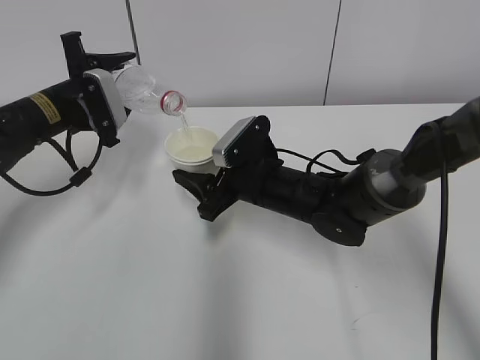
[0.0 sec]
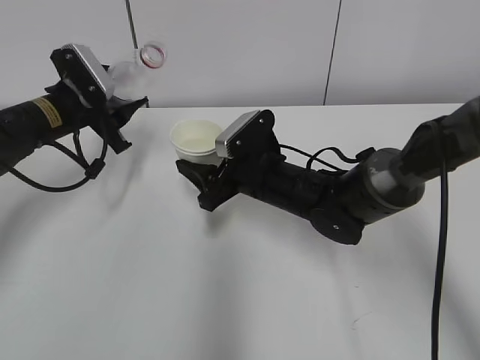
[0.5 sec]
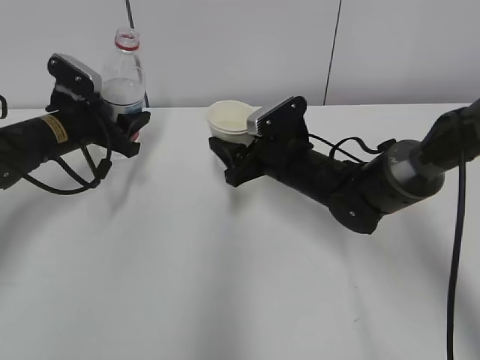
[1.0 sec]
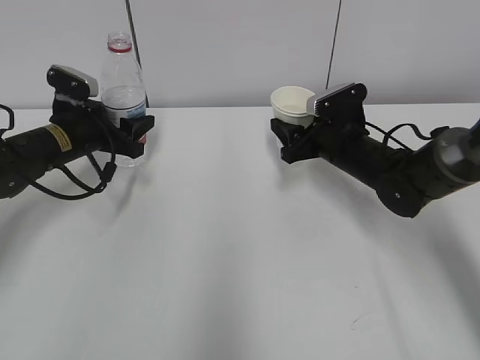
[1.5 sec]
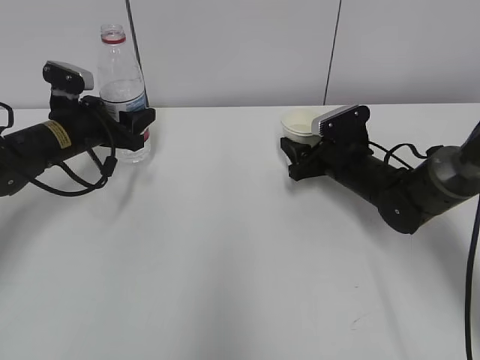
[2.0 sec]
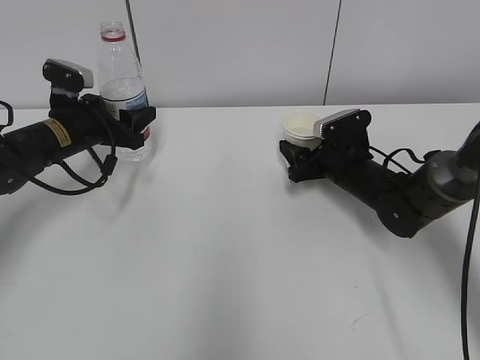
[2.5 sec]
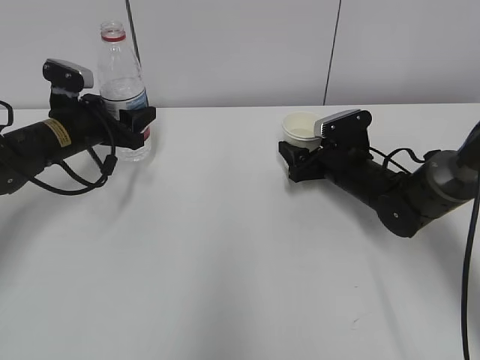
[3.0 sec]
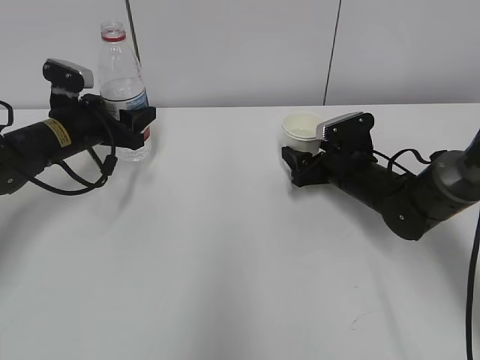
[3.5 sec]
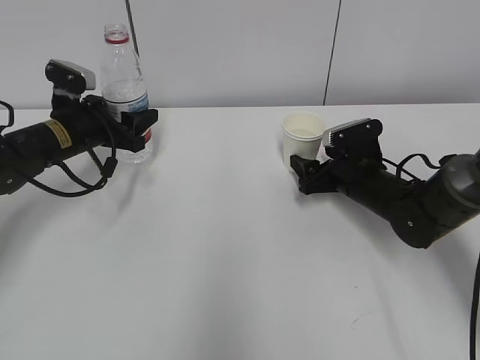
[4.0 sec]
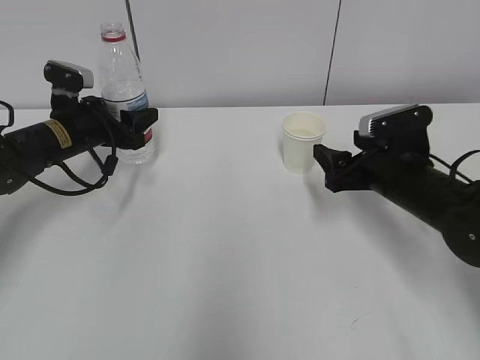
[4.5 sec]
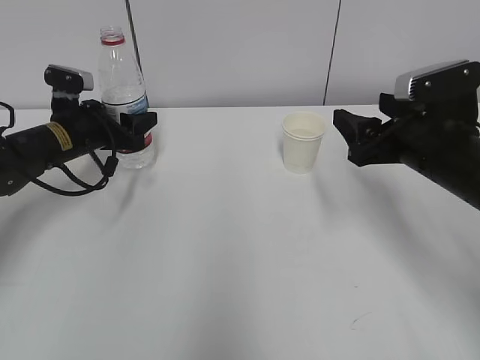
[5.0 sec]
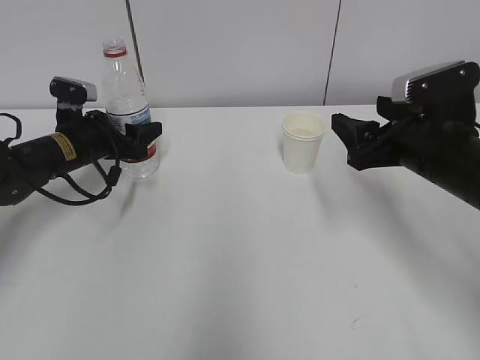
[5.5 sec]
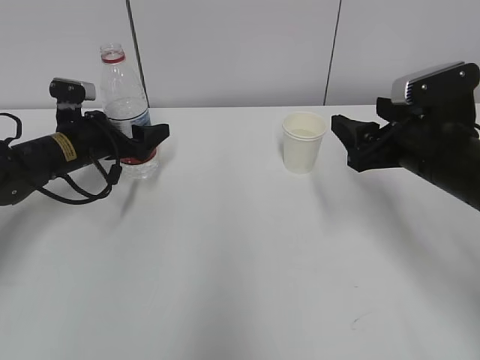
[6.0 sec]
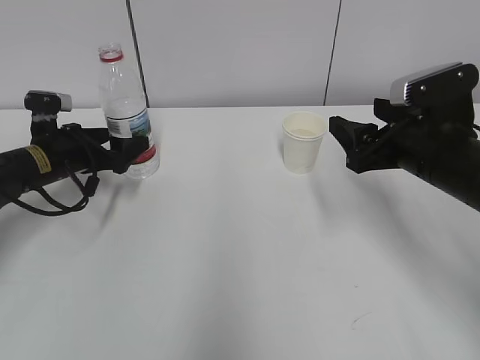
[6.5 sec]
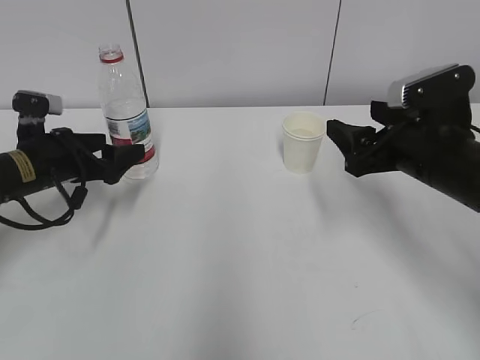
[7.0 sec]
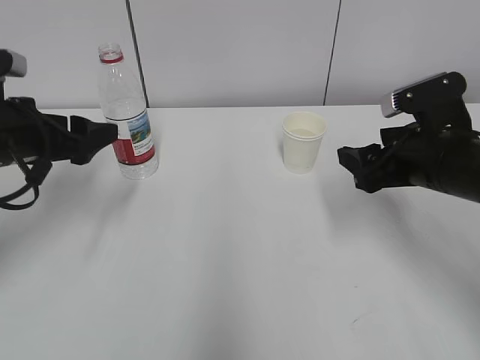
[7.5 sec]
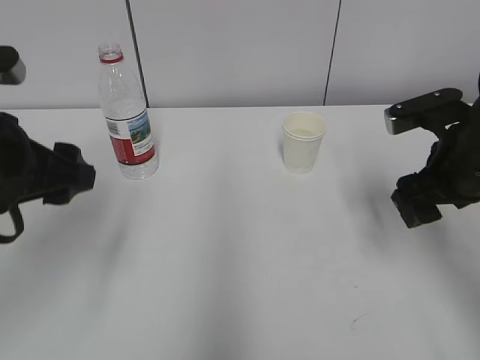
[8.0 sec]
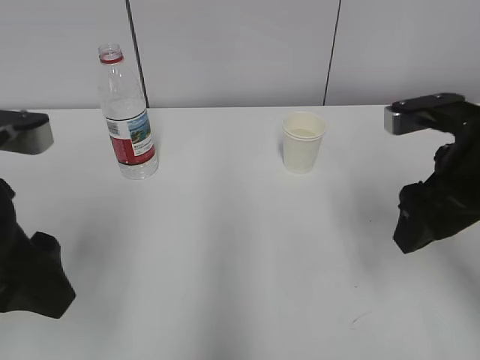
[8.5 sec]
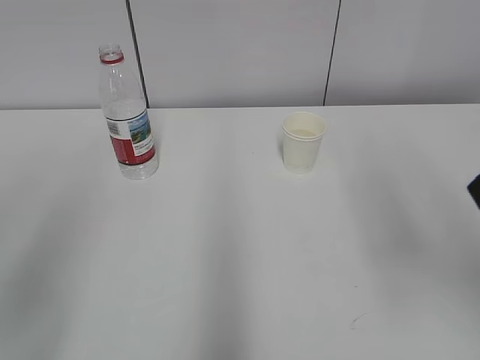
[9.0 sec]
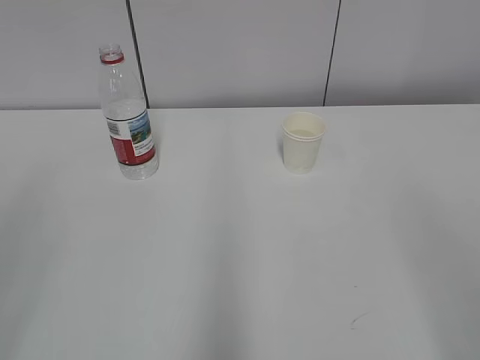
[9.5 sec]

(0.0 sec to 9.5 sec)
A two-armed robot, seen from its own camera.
0.0 sec - 2.0 sec: The right gripper heads to the right, covering approximately 15 cm.
2.0 sec - 4.0 sec: The right gripper opens its fingers.
4.0 sec - 5.5 sec: The right gripper goes some 15 cm upward and backward.
5.5 sec - 7.5 sec: The left gripper is displaced backward and upward by roughly 15 cm, and opens its fingers.
7.5 sec - 9.5 sec: Both grippers travel together backward and upward, roughly 30 cm. The left gripper closes.

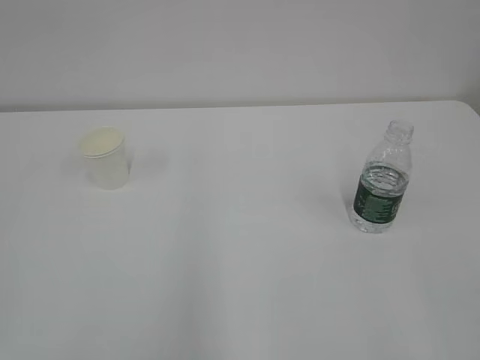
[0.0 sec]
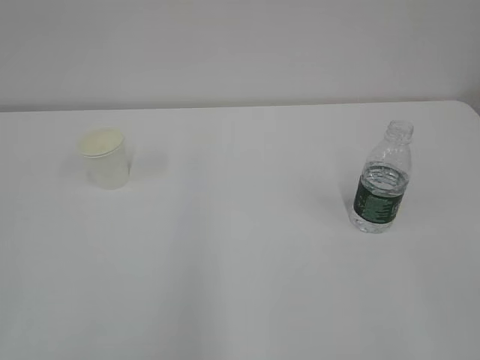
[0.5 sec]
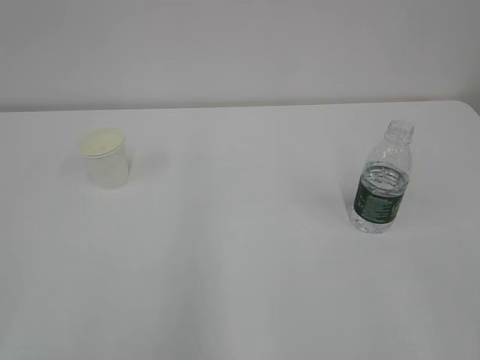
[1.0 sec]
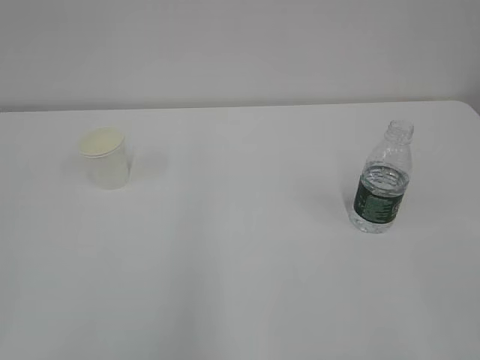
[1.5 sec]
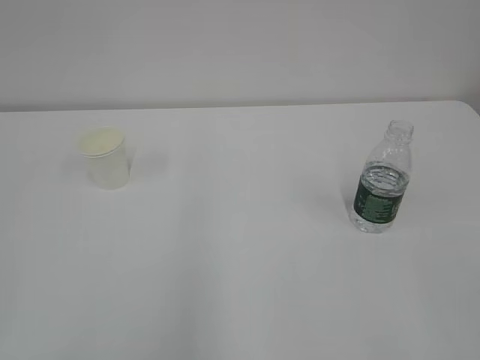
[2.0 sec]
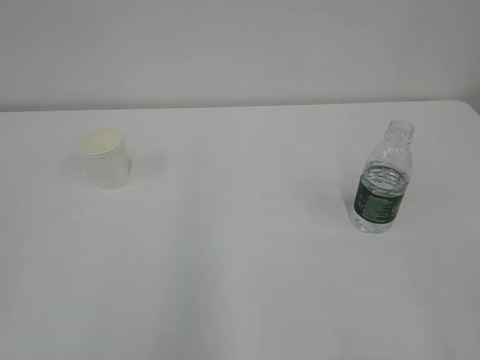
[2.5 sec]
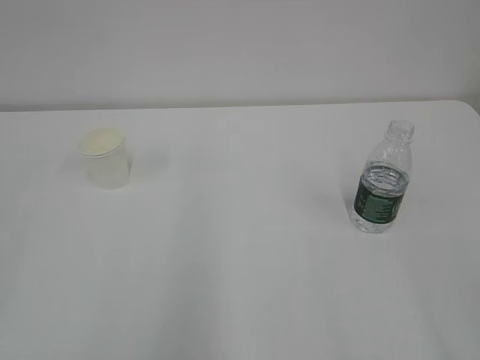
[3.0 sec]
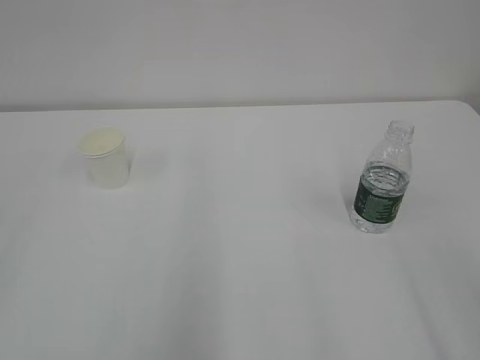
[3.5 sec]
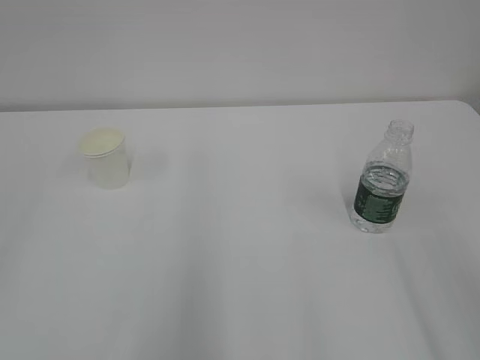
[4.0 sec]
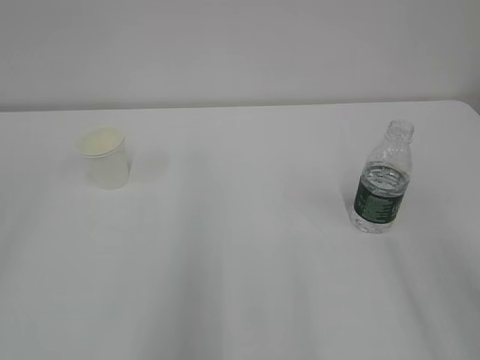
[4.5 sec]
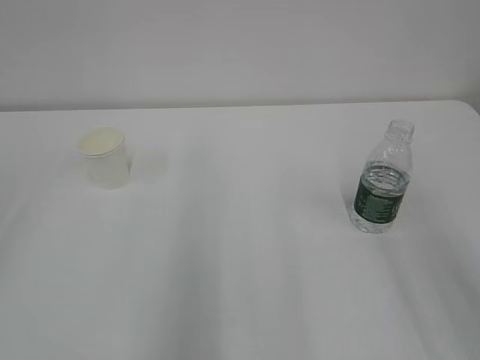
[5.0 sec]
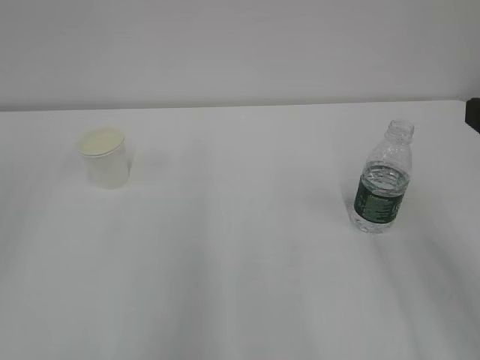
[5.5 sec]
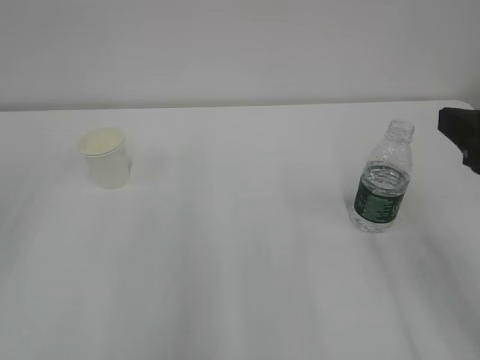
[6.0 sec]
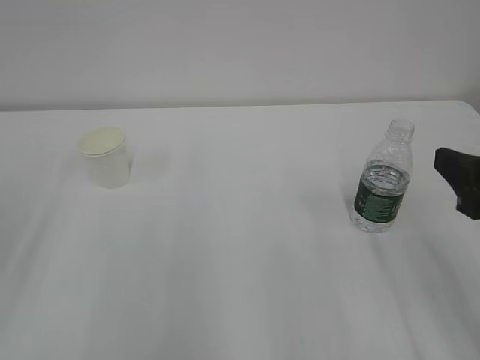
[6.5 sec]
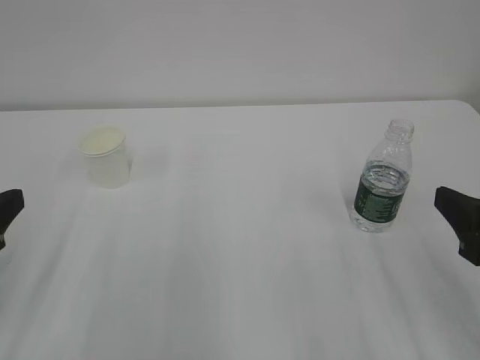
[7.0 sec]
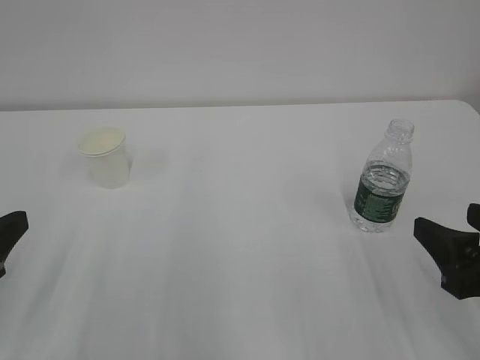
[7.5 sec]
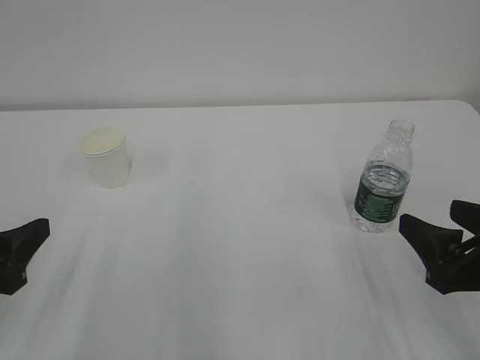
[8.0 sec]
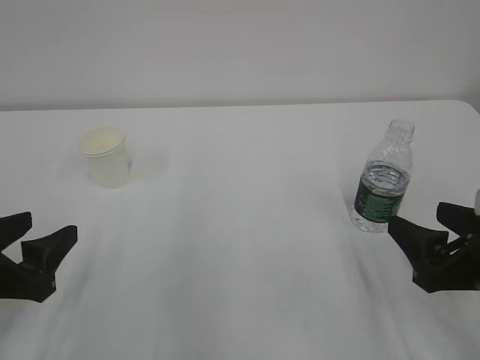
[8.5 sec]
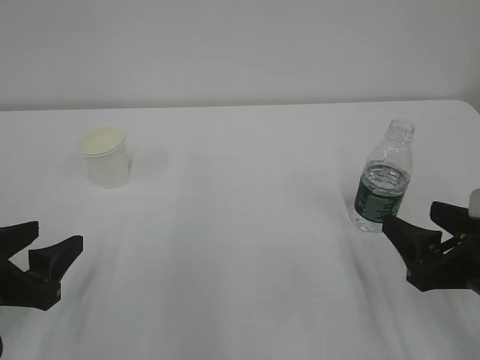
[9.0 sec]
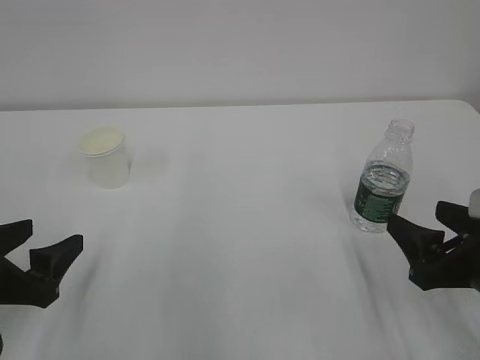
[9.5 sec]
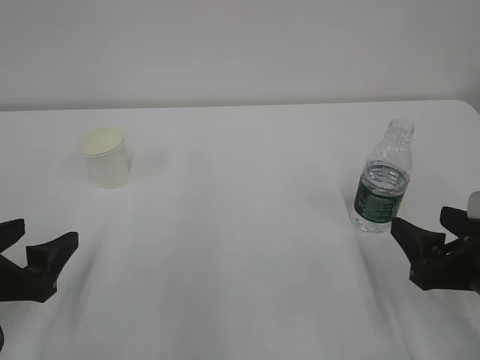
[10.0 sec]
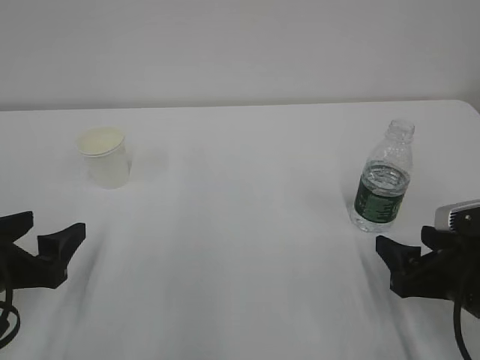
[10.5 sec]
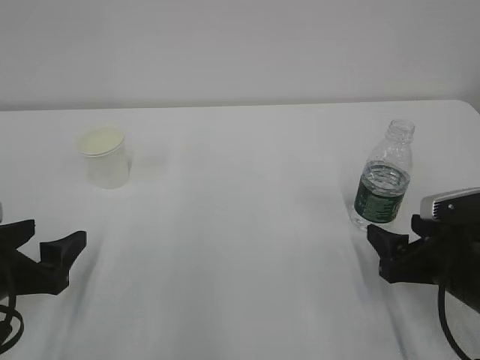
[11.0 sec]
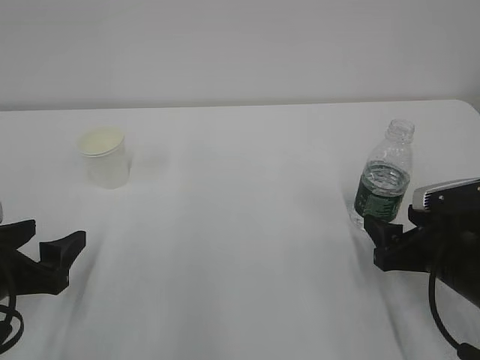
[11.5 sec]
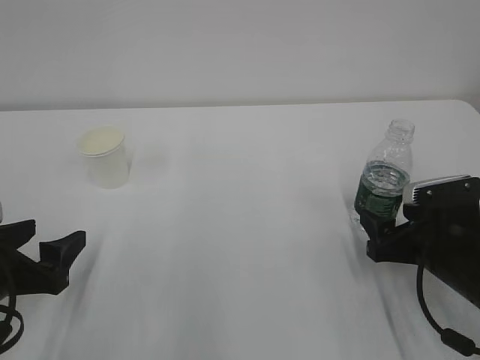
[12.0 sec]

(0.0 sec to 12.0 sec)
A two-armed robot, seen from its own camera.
4.0 sec - 6.0 sec: The right gripper goes approximately 15 cm forward.
6.0 sec - 8.0 sec: The left gripper goes approximately 15 cm downward, to the right and backward. Meanwhile the right gripper shifts approximately 10 cm downward.
8.0 sec - 10.0 sec: The left gripper opens.
10.0 sec - 12.0 sec: The right gripper travels forward and downward by roughly 10 cm.

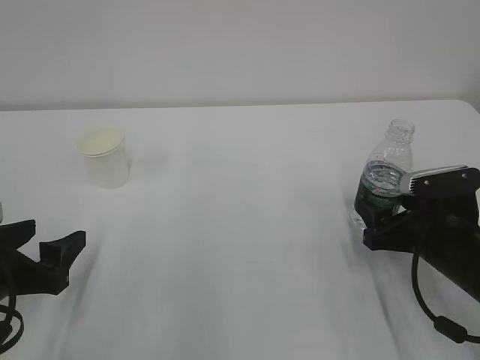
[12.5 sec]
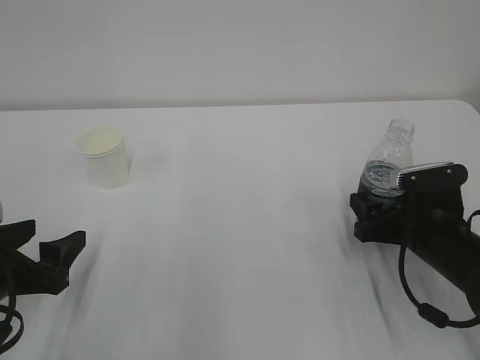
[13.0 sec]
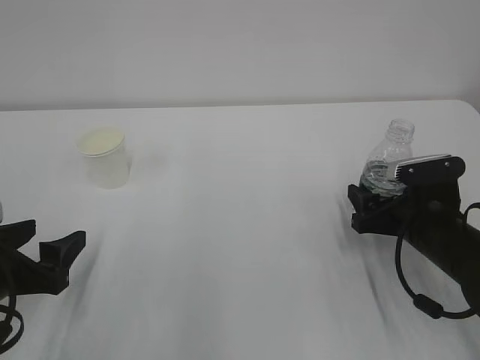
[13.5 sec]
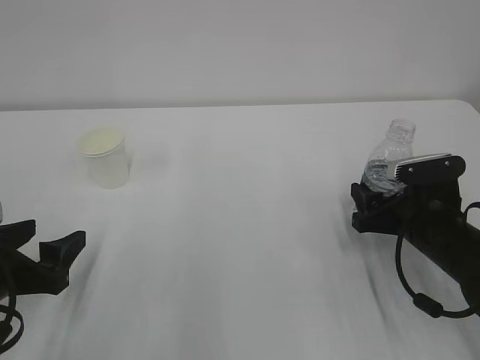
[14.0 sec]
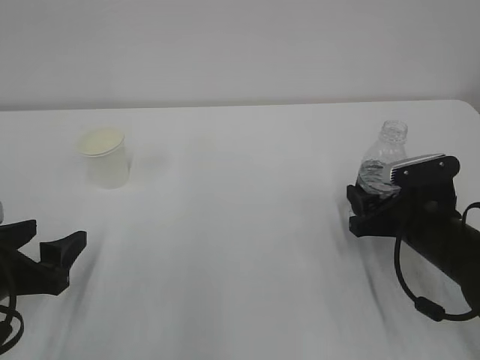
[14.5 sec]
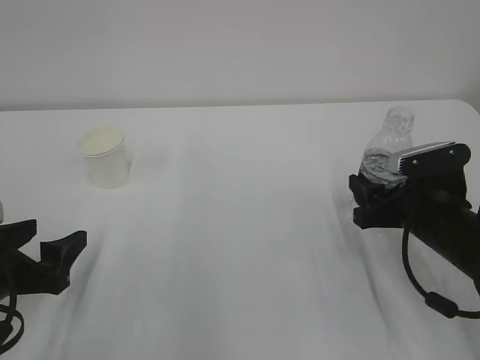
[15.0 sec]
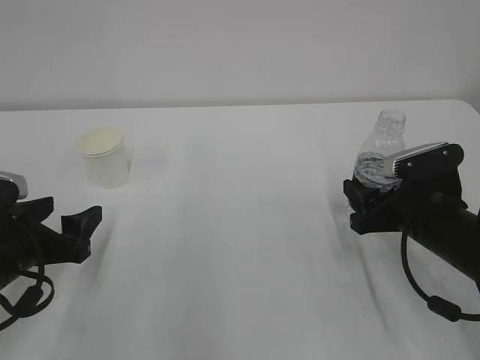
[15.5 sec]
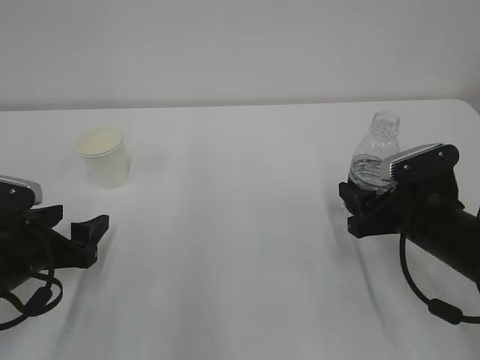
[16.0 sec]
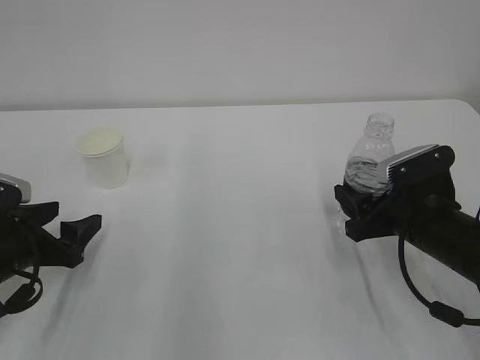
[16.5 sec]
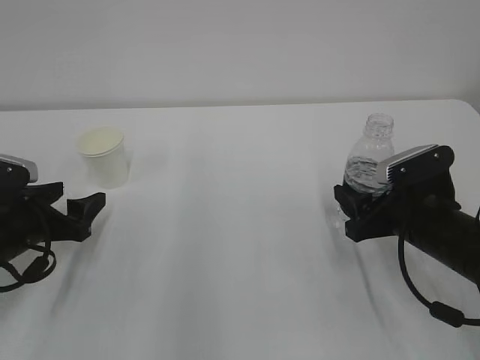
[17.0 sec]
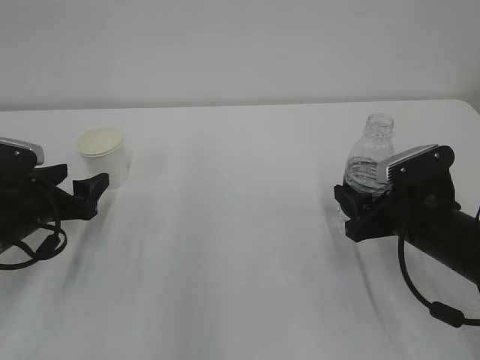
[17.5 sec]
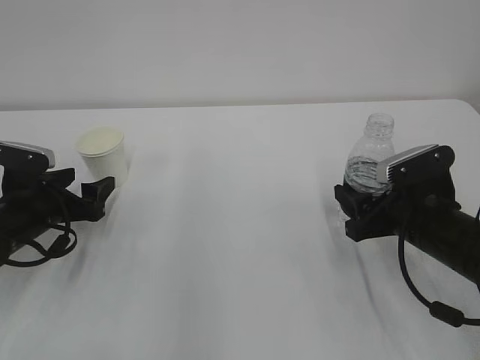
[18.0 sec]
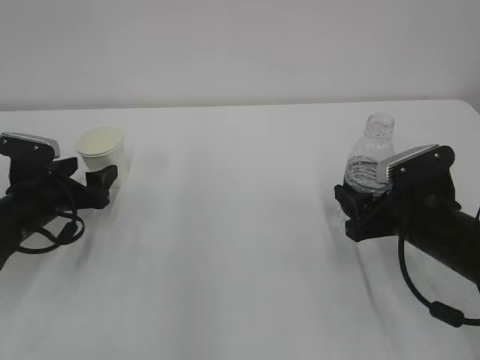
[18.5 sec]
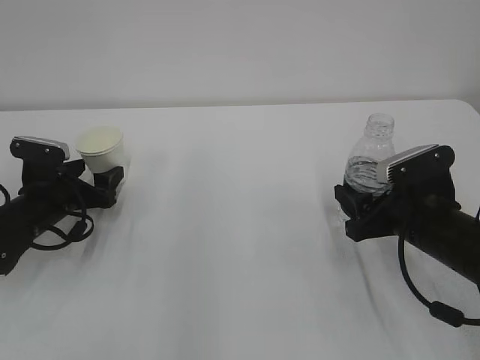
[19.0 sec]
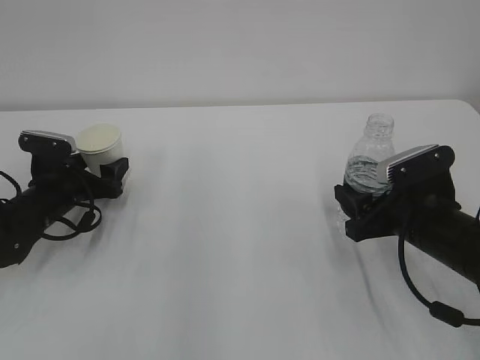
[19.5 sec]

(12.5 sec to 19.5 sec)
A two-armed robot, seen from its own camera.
12.5 sec - 14.5 sec: The right gripper closes.
14.5 sec - 16.0 sec: The left gripper shifts by some 5 cm.
16.0 sec - 17.5 sec: The left gripper travels forward by some 5 cm.
17.5 sec - 19.5 sec: The left gripper moves forward, approximately 5 cm.
